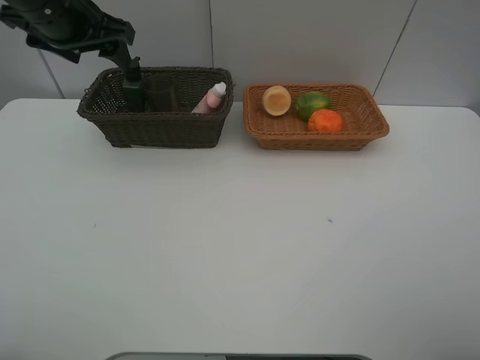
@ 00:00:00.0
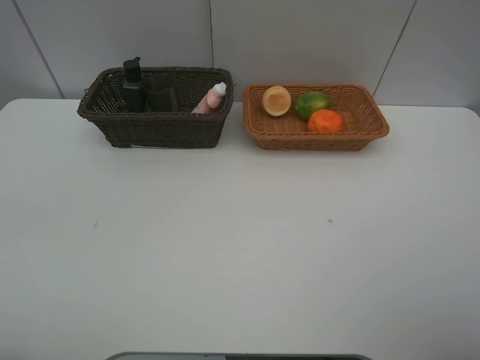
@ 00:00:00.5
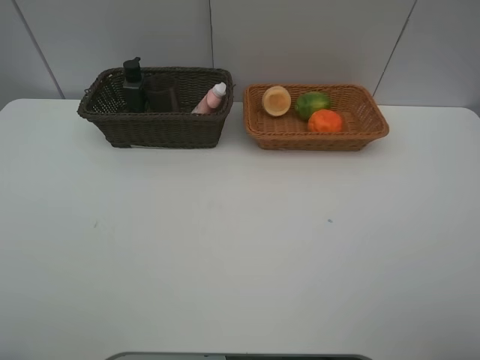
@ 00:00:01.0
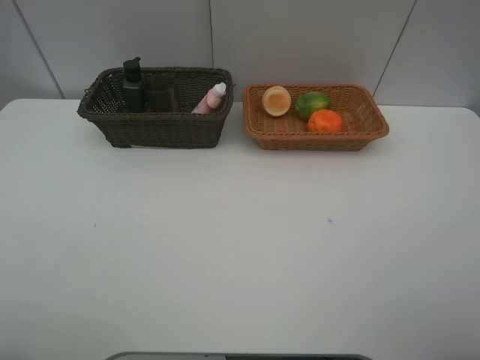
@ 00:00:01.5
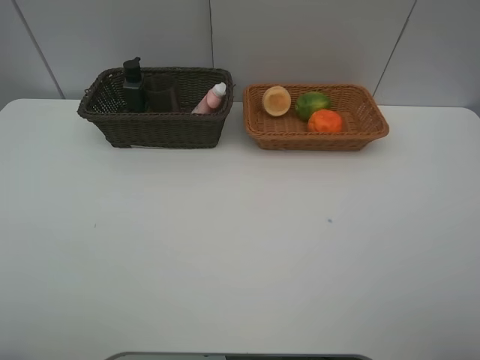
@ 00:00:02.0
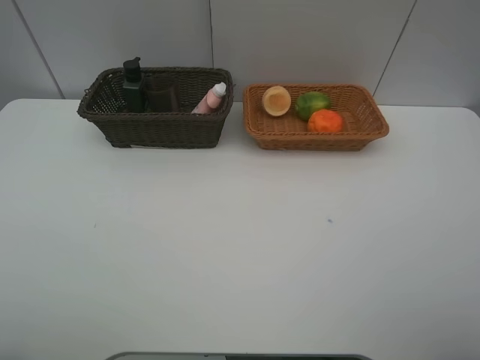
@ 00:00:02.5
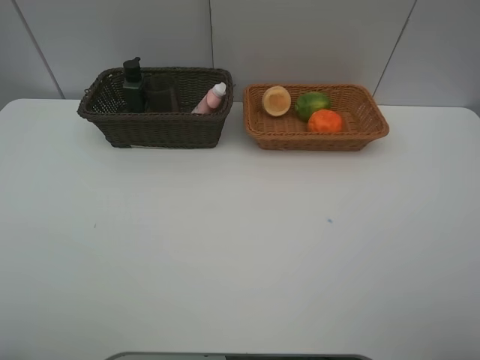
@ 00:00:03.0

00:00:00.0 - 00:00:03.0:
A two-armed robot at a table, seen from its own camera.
Task of the whole recording: place multiple objects separately in different baskets.
00:00:00.0 - 00:00:01.5: The left gripper heads backward, covering roughly 35 cm.
00:00:01.5 - 00:00:03.0: Neither gripper changes place.

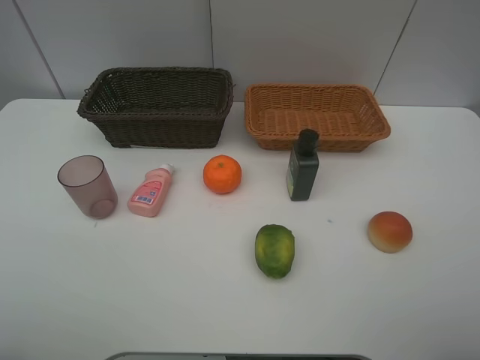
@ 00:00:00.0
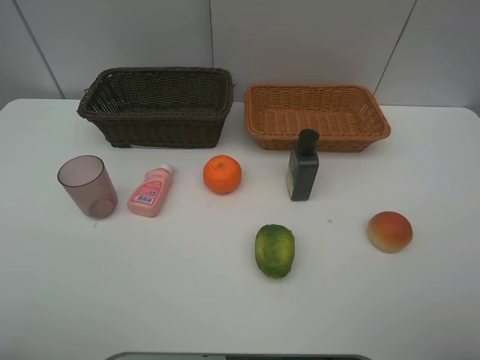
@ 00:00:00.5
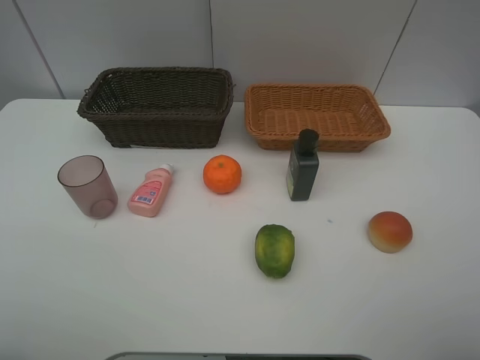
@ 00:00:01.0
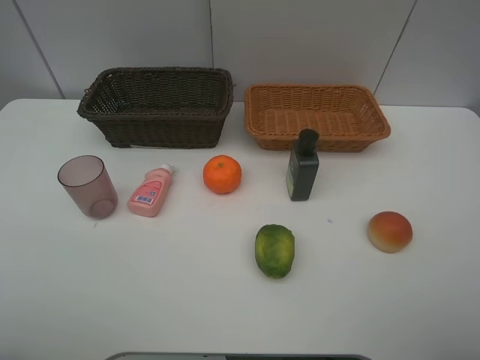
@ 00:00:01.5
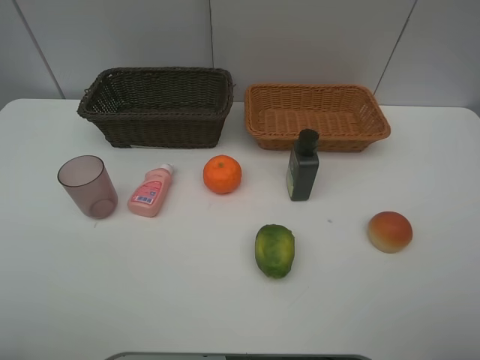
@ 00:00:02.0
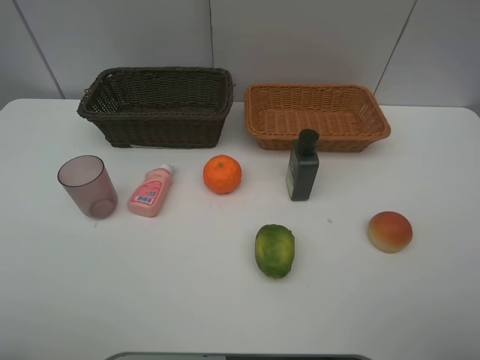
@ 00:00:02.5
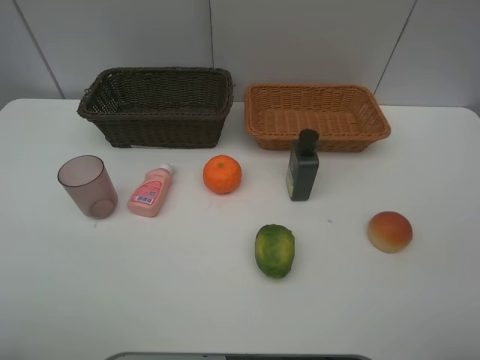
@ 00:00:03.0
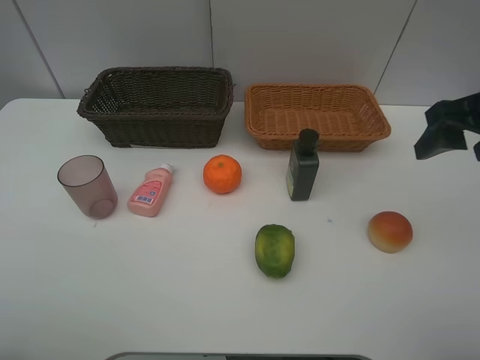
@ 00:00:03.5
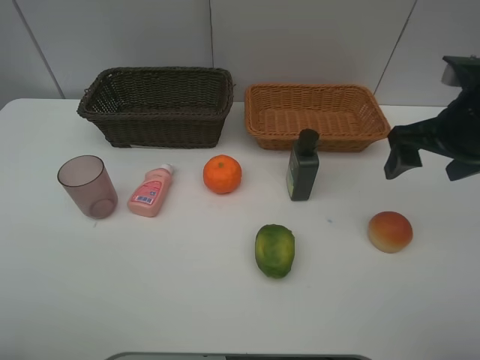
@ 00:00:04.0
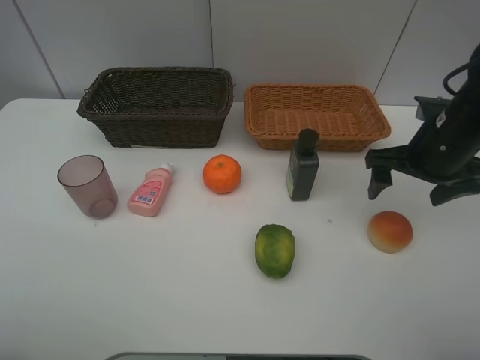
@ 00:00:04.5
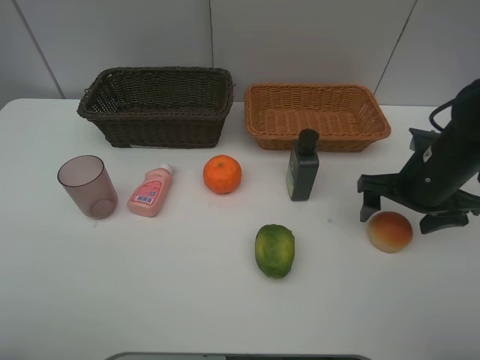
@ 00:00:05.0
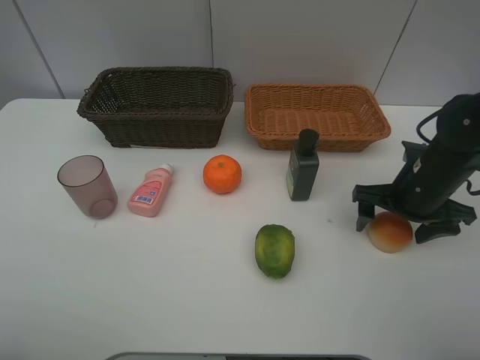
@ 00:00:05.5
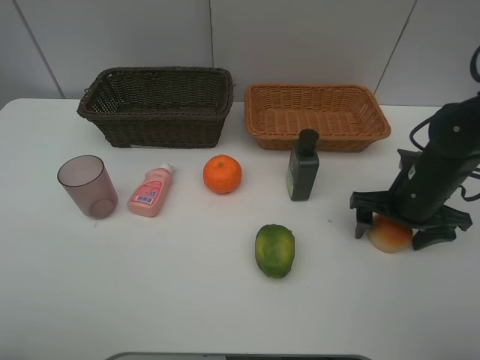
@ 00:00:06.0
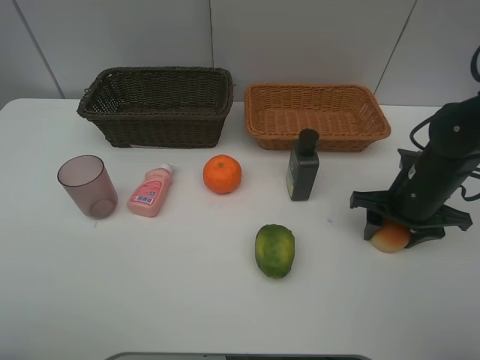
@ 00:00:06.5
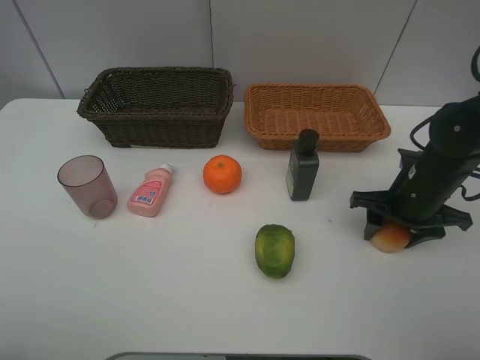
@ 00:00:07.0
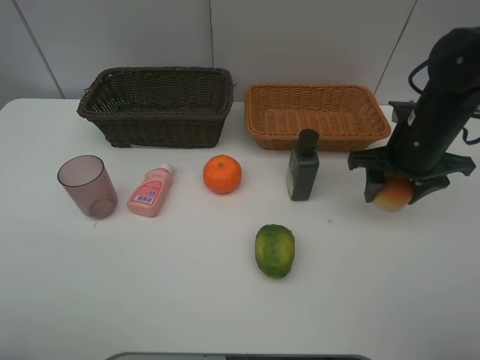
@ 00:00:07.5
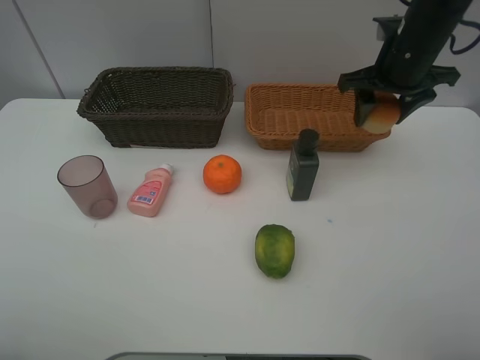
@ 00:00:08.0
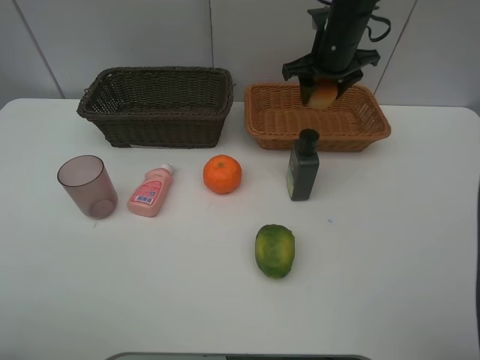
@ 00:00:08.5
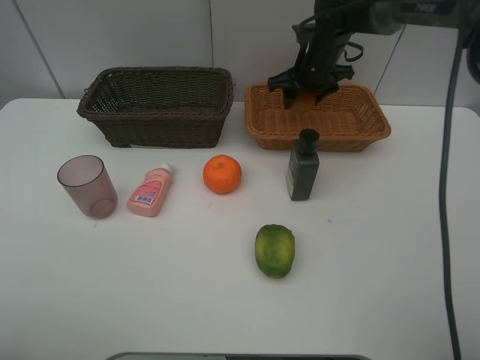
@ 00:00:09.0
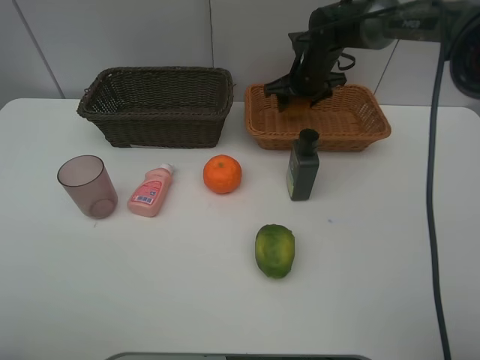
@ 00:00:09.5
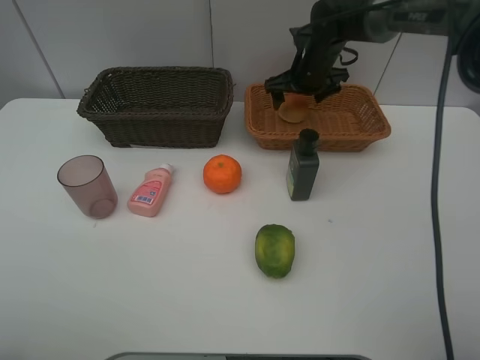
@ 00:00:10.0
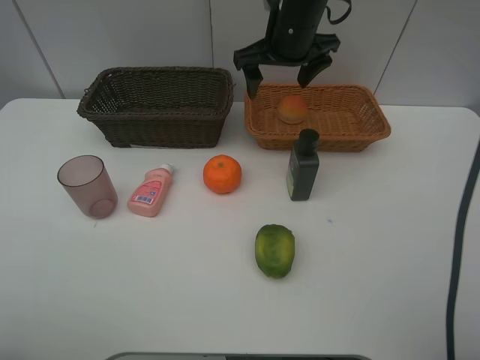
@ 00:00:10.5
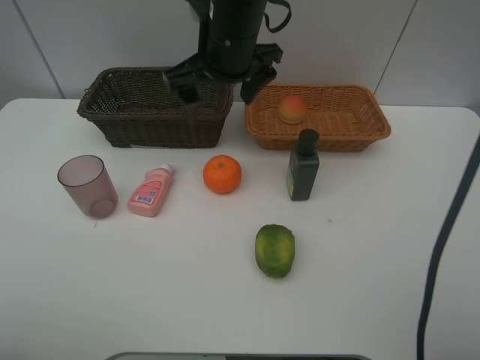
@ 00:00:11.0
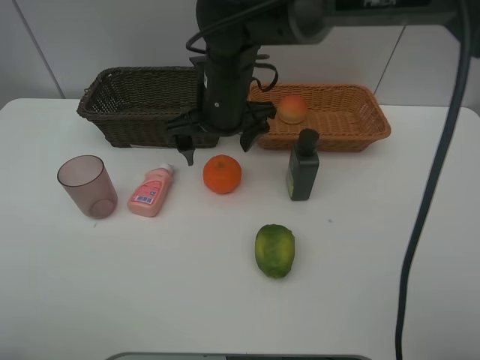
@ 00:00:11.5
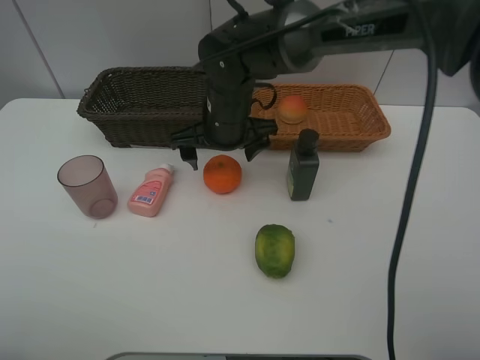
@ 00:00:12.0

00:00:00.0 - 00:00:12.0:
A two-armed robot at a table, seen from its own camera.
Task of the whole recording: place multiple objects separately in different baskets.
00:00:00.0 - 00:00:02.0: Both grippers stay about where they are.
00:00:02.0 - 00:00:04.0: The right gripper goes approximately 25 cm forward.
00:00:04.0 - 00:00:06.0: The right gripper heads downward, covering about 15 cm.
00:00:06.0 - 00:00:08.0: The right gripper is displaced upward and forward by some 20 cm, and closes up.
00:00:08.0 - 00:00:10.0: The right gripper travels forward, downward and to the left by approximately 15 cm, and opens.
00:00:10.0 - 00:00:12.0: The right gripper moves to the left and backward, about 20 cm.

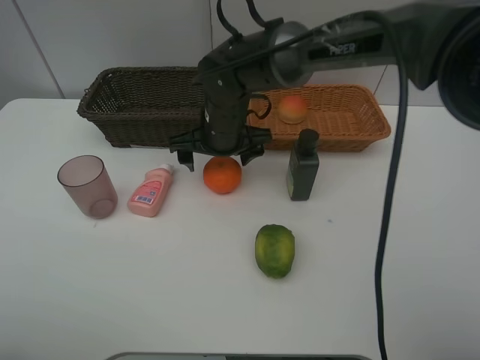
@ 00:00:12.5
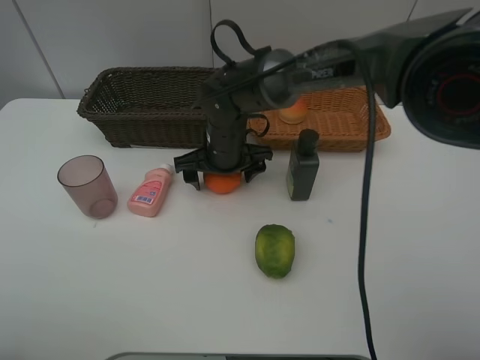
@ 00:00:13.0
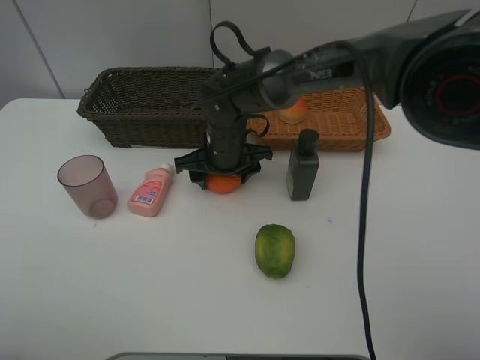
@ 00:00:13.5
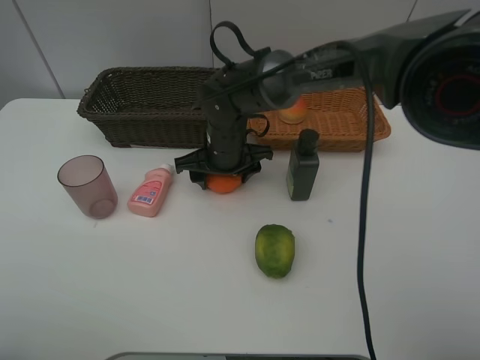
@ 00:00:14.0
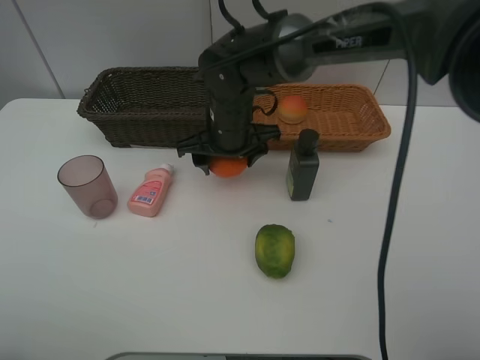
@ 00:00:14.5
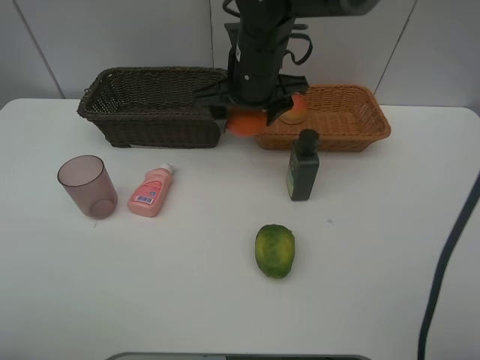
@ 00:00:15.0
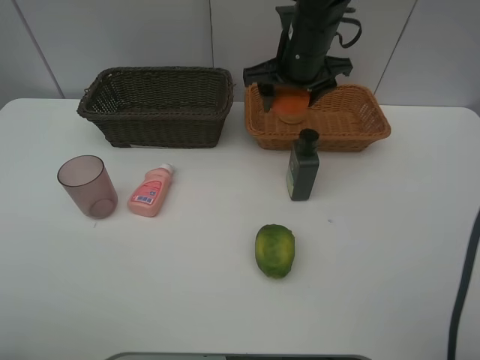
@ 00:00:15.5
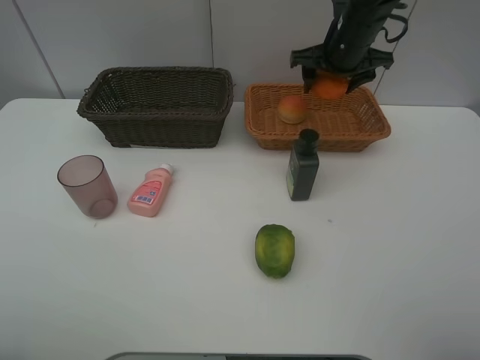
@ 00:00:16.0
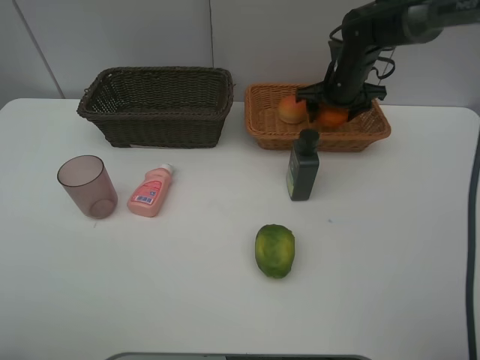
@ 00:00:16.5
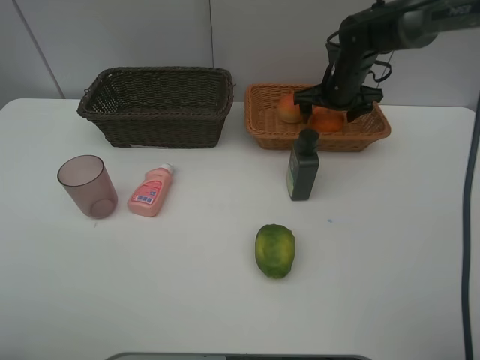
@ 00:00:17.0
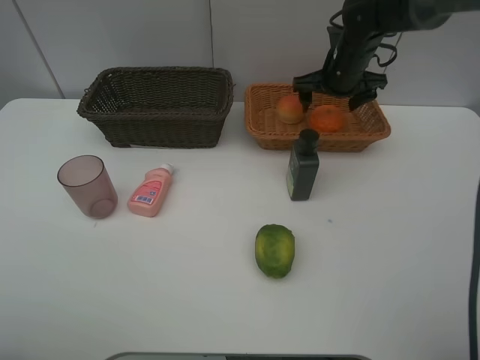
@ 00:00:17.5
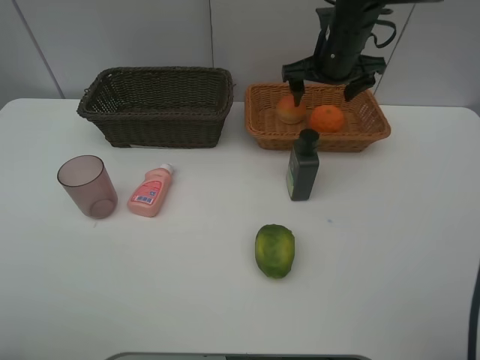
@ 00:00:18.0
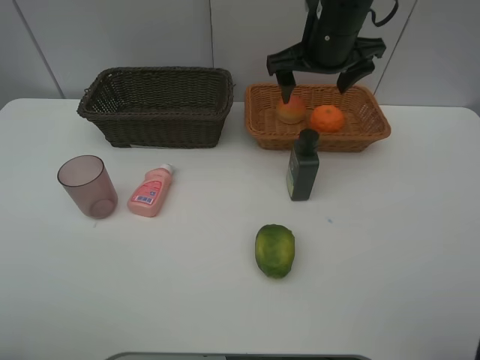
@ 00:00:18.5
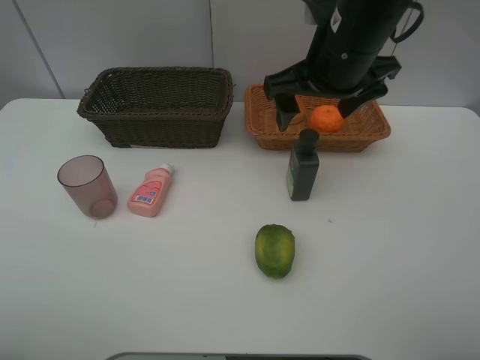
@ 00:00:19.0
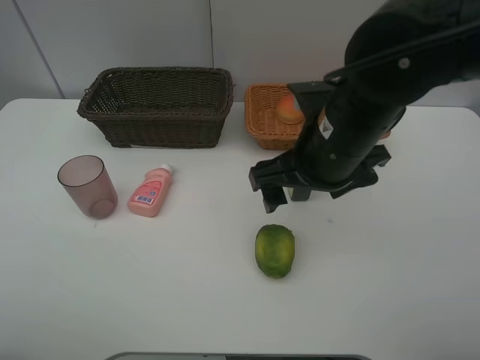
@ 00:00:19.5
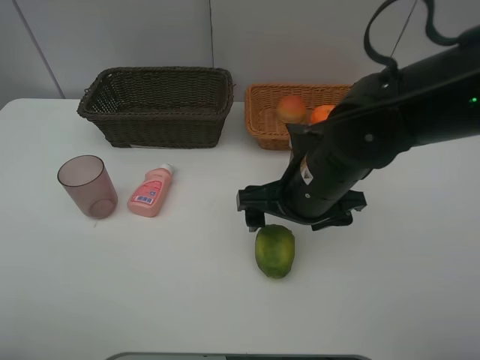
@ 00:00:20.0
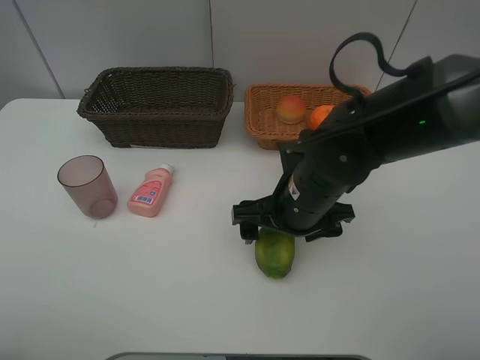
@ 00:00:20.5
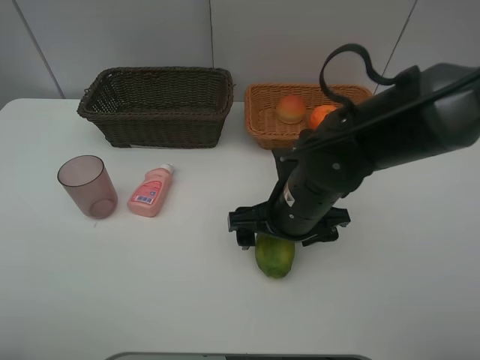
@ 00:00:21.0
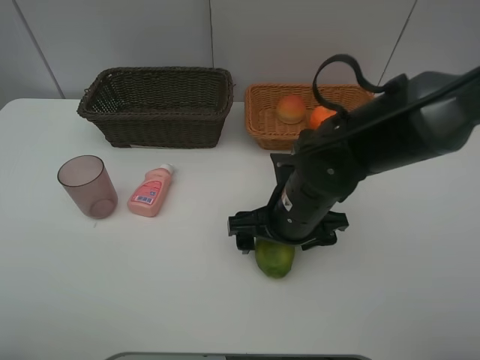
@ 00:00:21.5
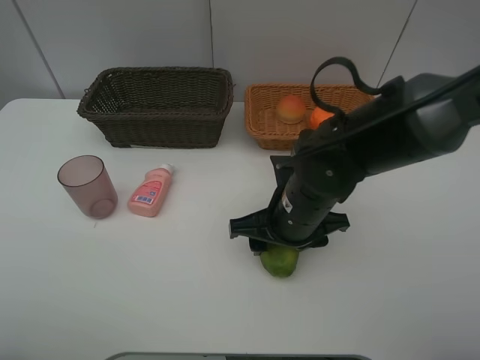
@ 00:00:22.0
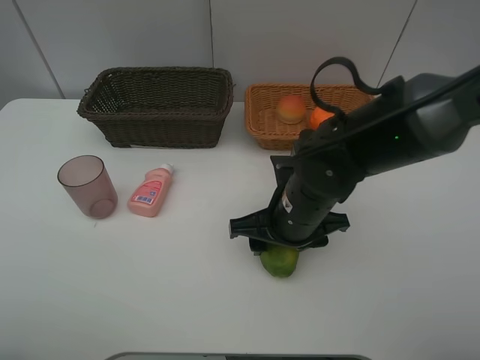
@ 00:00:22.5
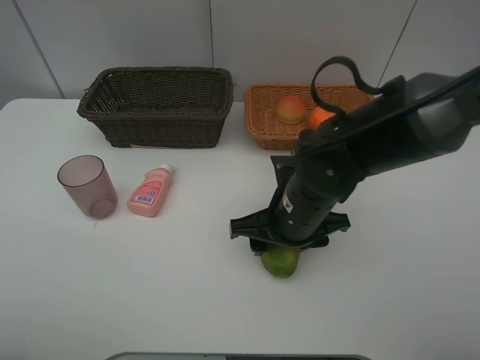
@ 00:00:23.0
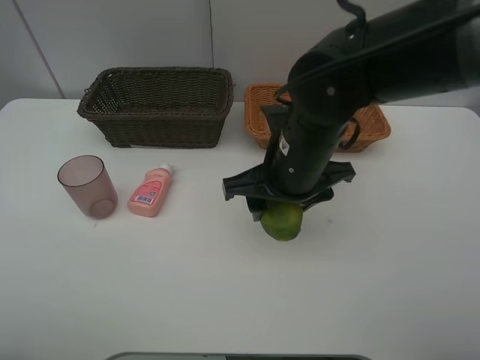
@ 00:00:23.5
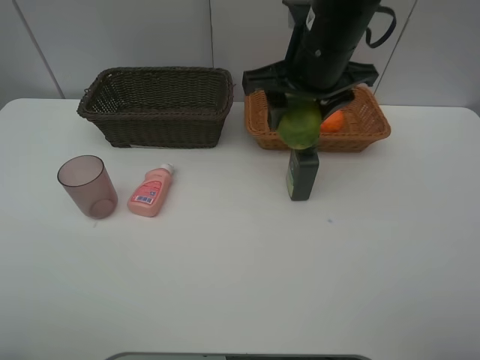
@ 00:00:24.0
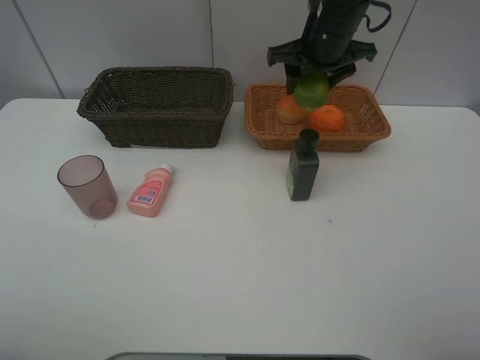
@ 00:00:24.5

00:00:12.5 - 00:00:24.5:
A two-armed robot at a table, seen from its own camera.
Task of the whole recording: place multiple objects separately in different baskets.
00:00:12.5 - 00:00:14.5: The right gripper closes.
00:00:14.5 - 00:00:16.5: The right gripper is displaced to the right and forward by roughly 25 cm.
00:00:16.5 - 00:00:18.5: The right gripper is displaced upward, backward and to the left by about 15 cm, and opens up.
00:00:18.5 - 00:00:20.5: The right gripper moves backward and downward, some 20 cm.
00:00:20.5 - 00:00:22.5: The right gripper closes.
00:00:22.5 - 00:00:24.5: The right gripper moves forward and upward, about 25 cm.
